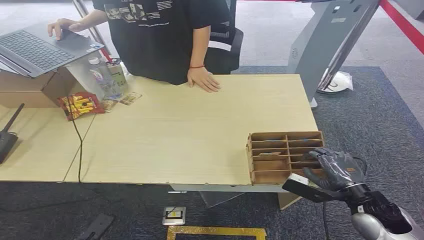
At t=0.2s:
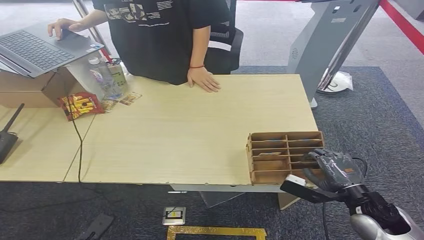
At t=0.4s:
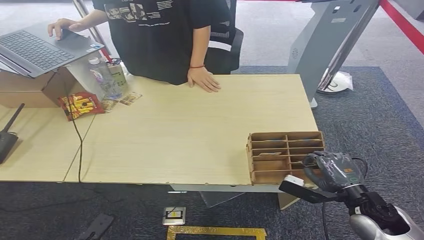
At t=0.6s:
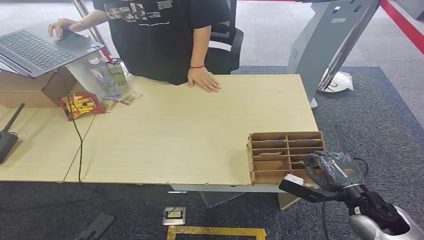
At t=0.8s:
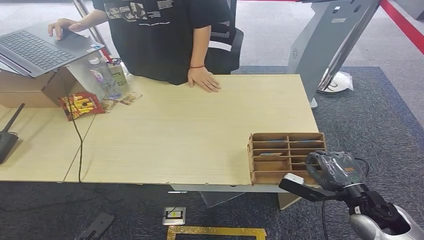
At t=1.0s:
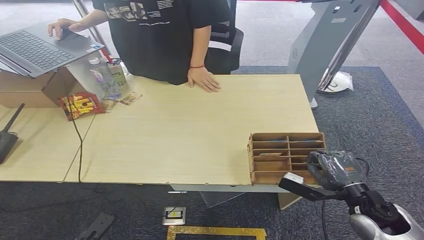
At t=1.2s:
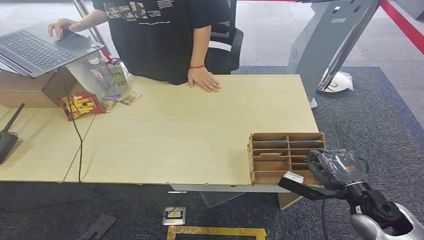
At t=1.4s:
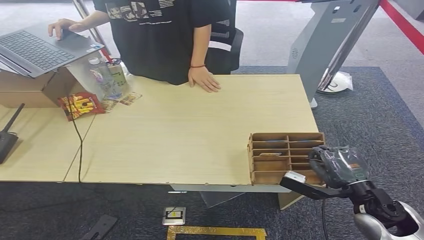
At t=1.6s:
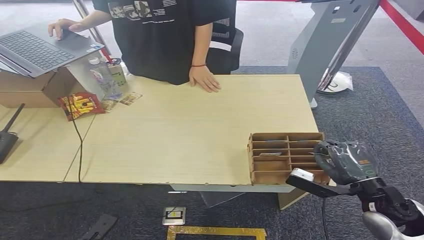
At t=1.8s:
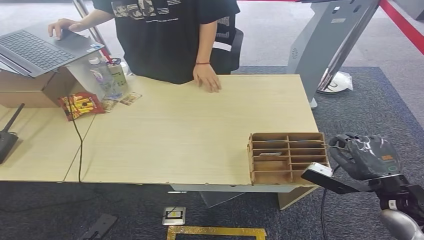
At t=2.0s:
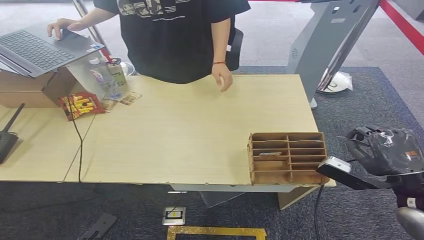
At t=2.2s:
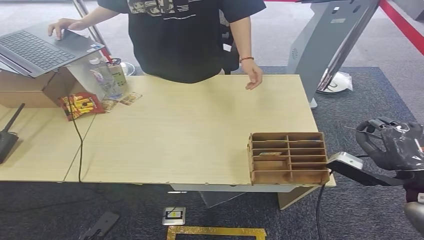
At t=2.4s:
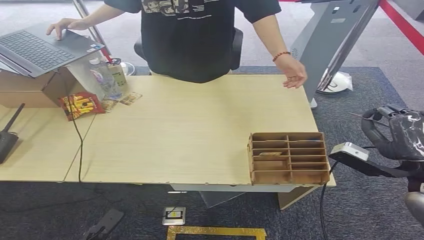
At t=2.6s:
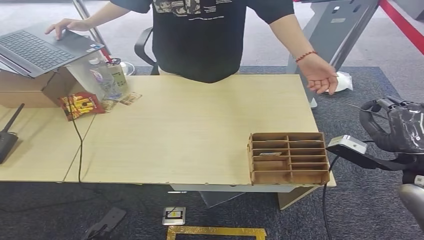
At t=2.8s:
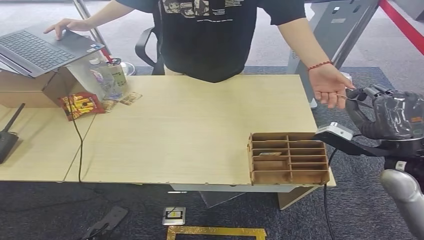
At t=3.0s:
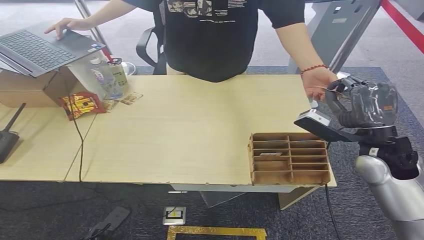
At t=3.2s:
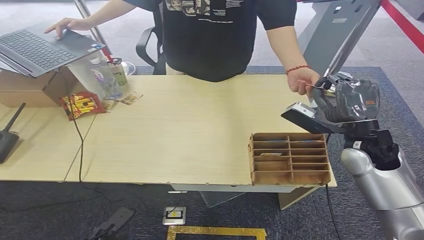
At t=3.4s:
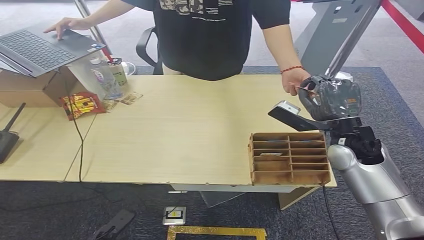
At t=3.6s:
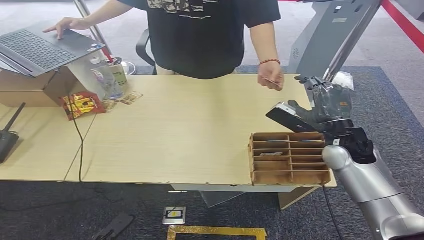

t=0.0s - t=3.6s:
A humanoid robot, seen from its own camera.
Step, t=0.0s - t=2.0s: Pick up the room card from the card holder.
Step, t=2.2s - t=3.6s: Hand the room card to the target.
t=1.8s - t=3.6s: The right hand is displaced forward and to the left by roughly 15 cm.

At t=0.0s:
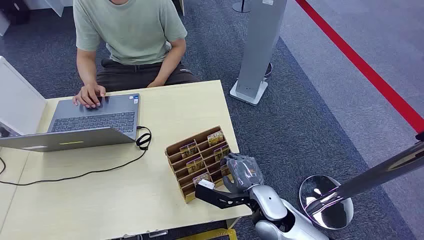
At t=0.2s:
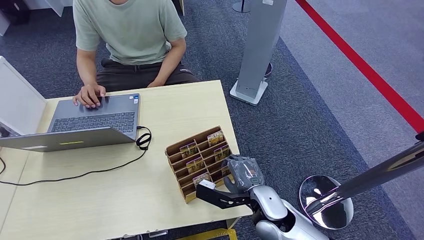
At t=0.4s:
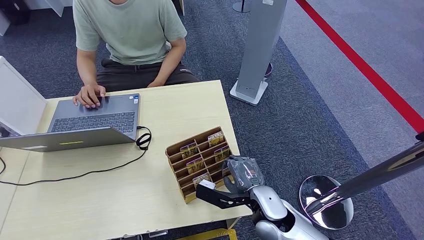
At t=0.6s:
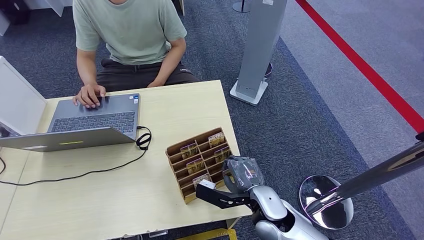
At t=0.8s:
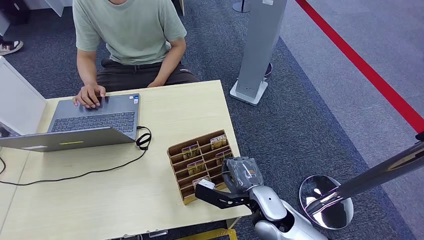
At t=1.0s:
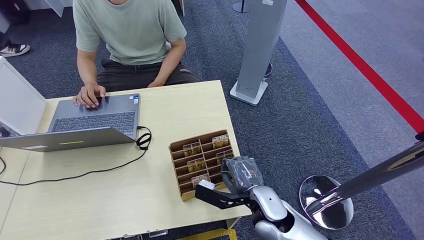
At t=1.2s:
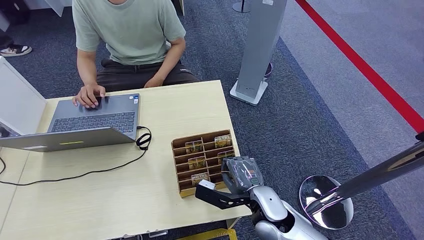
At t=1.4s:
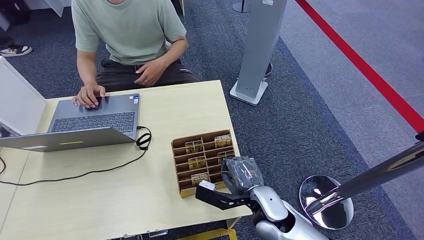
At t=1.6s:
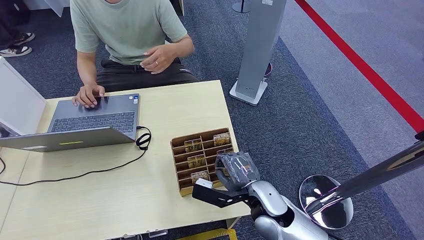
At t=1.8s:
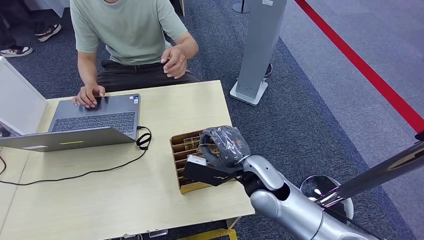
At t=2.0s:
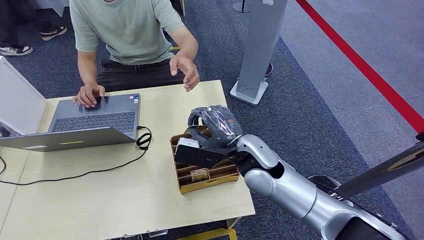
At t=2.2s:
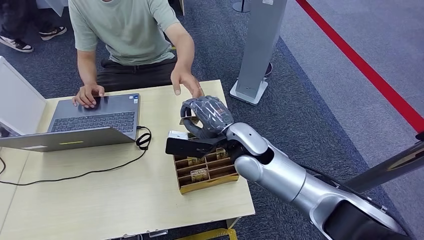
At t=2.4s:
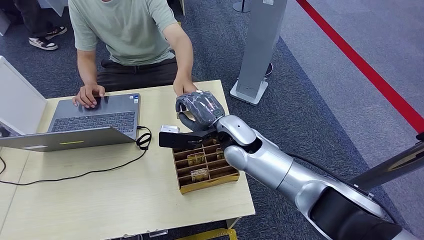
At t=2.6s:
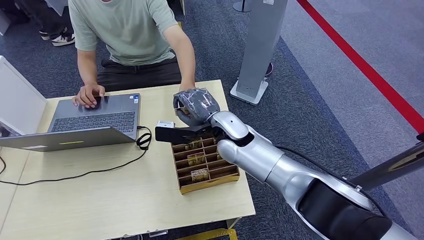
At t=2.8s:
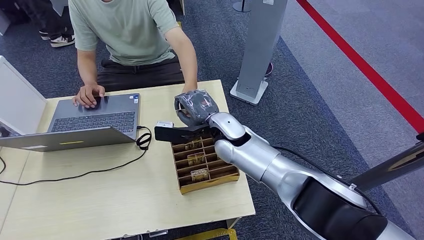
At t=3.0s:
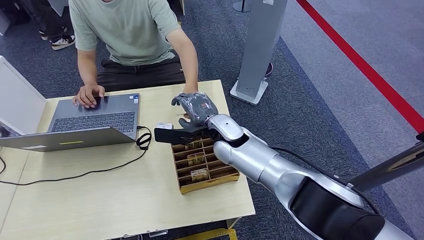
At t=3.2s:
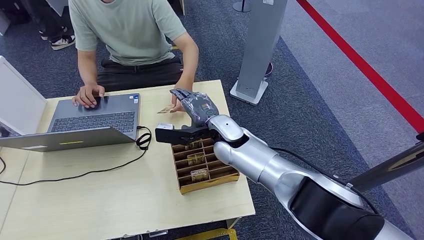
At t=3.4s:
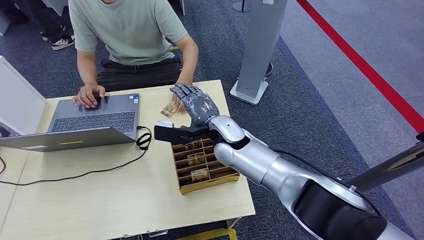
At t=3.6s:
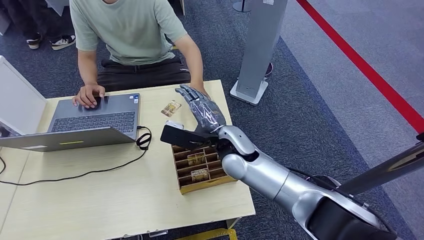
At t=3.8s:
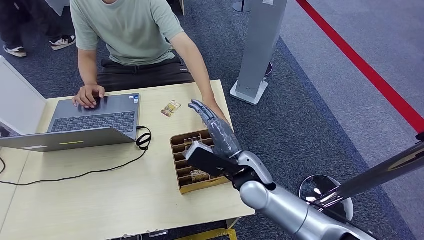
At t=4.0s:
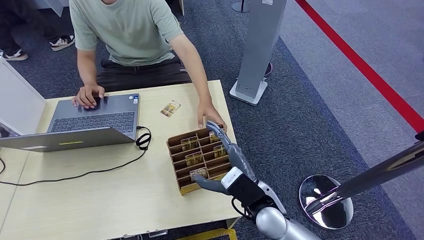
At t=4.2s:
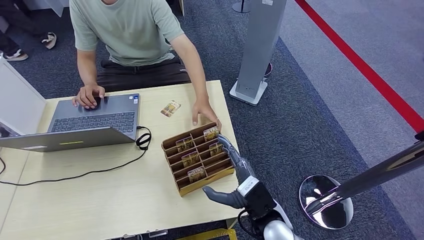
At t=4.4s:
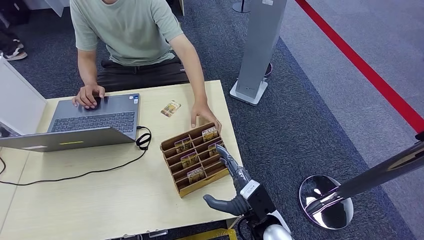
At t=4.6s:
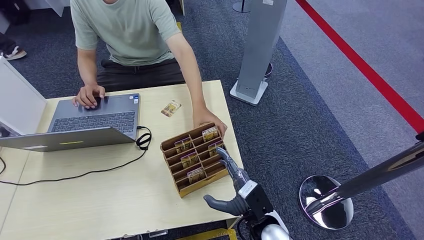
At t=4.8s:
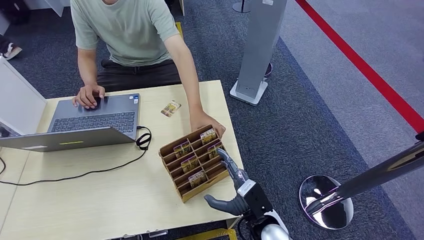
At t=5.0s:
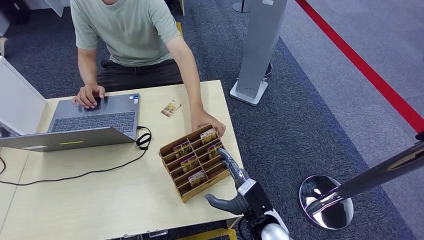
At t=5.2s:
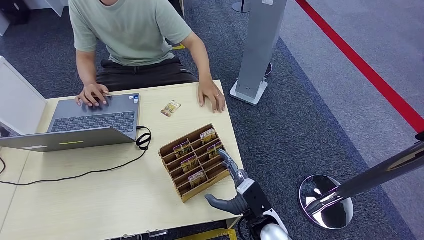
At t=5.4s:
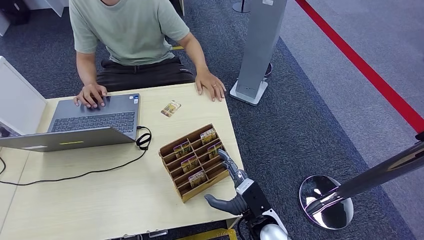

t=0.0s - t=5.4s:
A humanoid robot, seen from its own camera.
Step, t=0.0s - t=1.8s: Pick up the room card from the card holder.
Step, t=2.0s - t=5.4s: Hand the room card to the target.
t=2.8s - t=4.0s: The right hand is displaced backward, to the right and downward by roughly 20 cm.
t=4.0s - t=5.4s: The right hand travels downward by approximately 10 cm.
